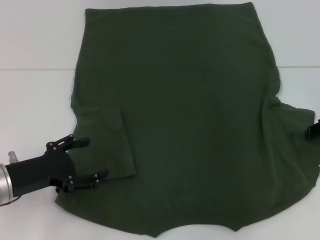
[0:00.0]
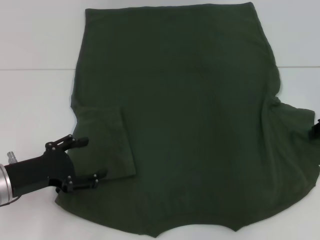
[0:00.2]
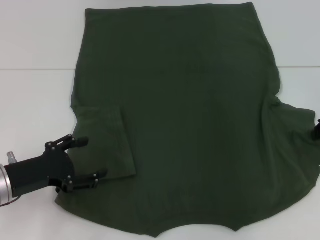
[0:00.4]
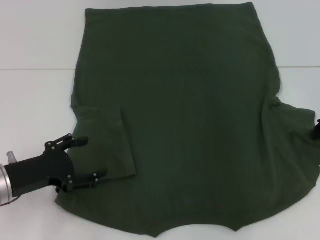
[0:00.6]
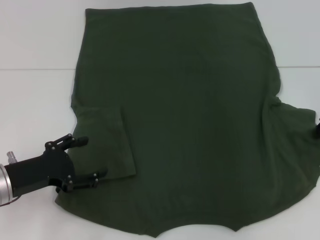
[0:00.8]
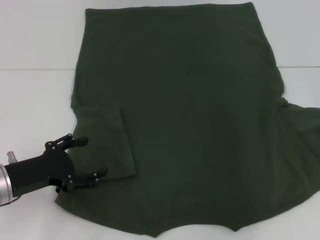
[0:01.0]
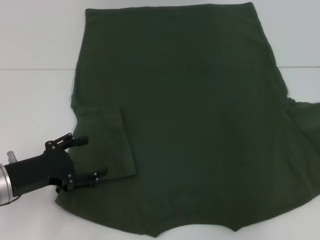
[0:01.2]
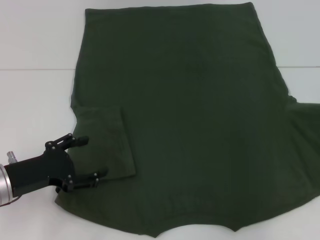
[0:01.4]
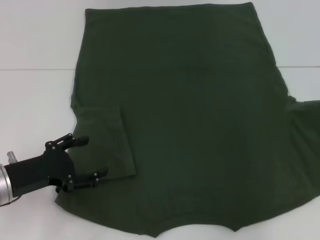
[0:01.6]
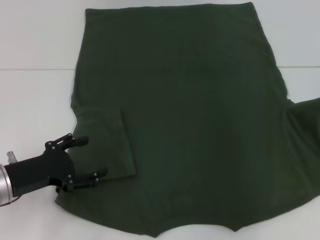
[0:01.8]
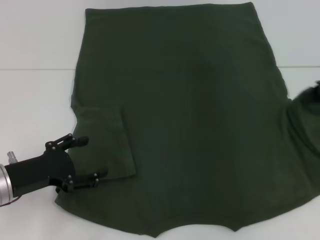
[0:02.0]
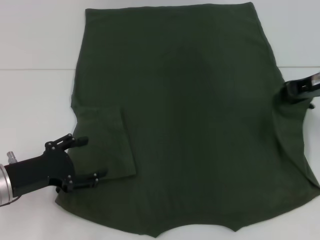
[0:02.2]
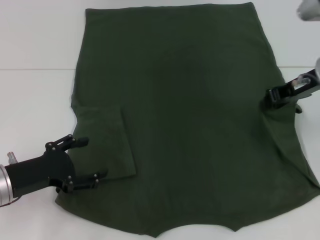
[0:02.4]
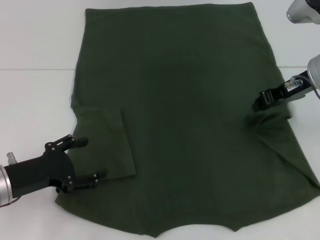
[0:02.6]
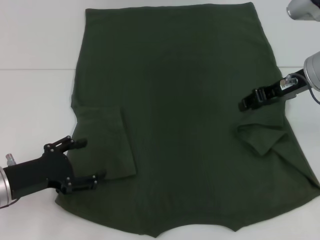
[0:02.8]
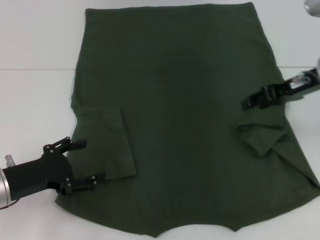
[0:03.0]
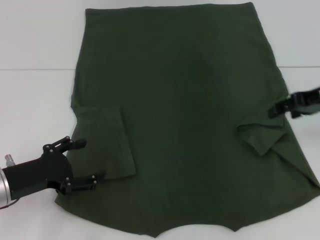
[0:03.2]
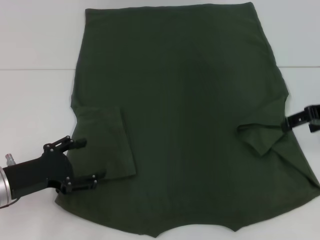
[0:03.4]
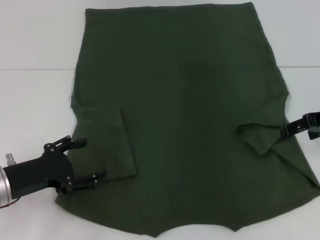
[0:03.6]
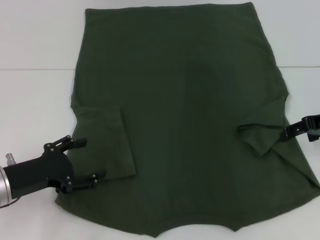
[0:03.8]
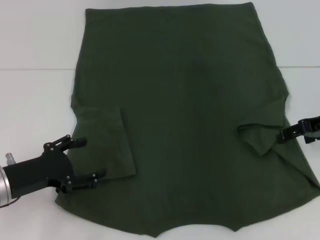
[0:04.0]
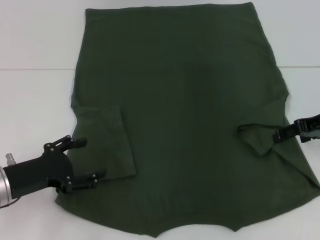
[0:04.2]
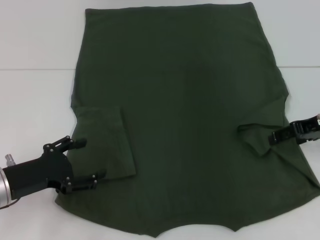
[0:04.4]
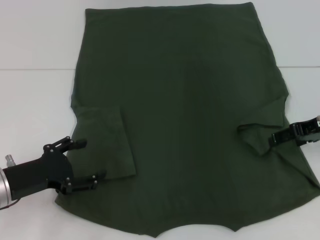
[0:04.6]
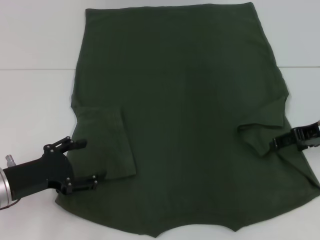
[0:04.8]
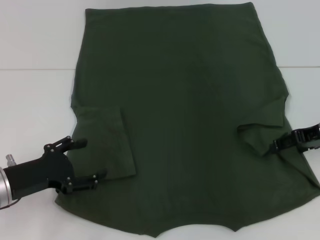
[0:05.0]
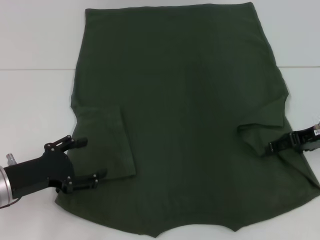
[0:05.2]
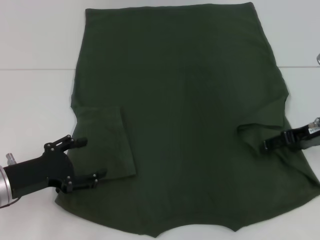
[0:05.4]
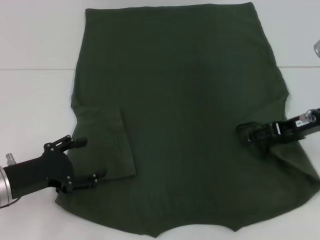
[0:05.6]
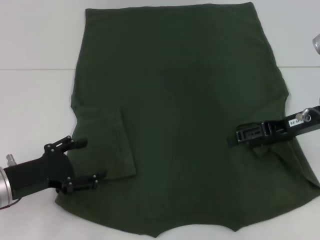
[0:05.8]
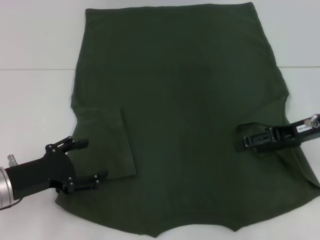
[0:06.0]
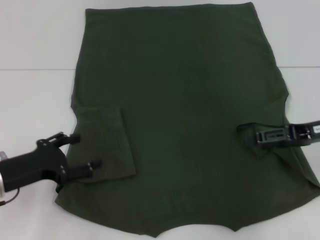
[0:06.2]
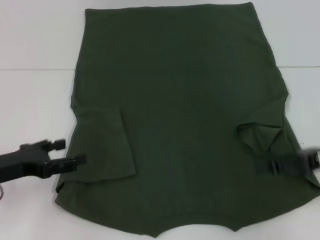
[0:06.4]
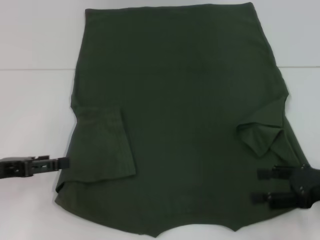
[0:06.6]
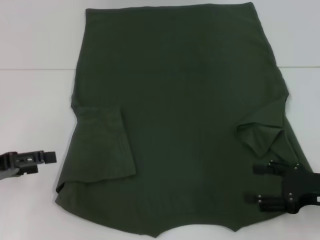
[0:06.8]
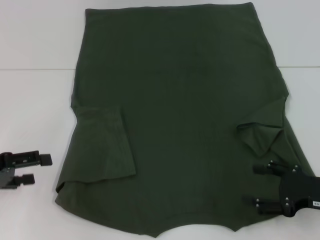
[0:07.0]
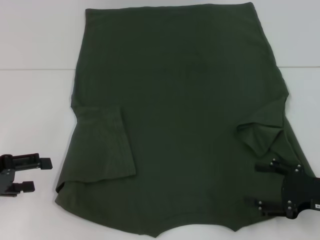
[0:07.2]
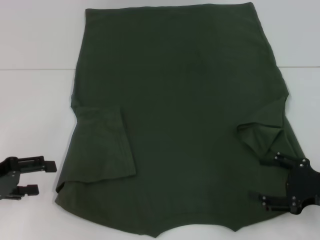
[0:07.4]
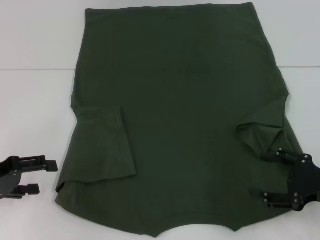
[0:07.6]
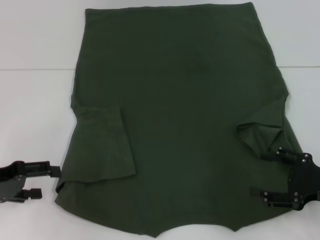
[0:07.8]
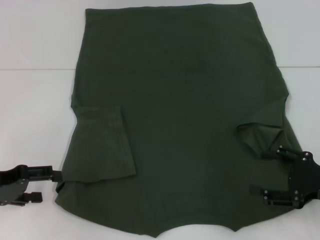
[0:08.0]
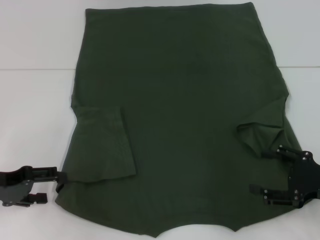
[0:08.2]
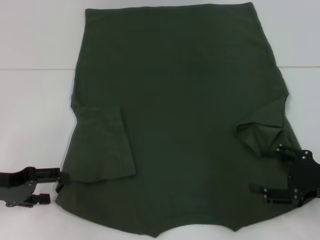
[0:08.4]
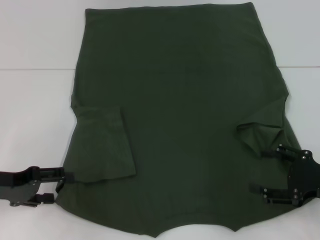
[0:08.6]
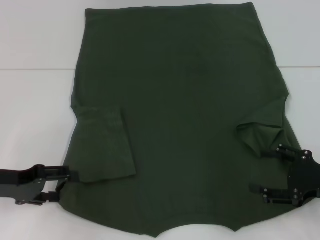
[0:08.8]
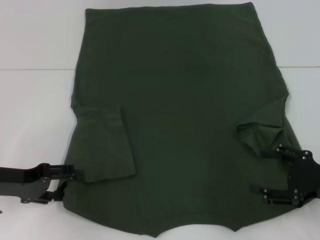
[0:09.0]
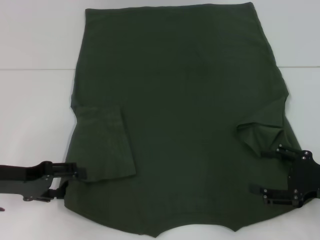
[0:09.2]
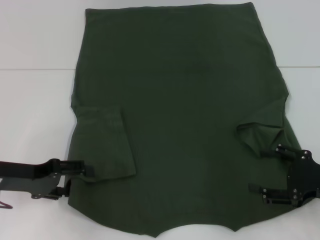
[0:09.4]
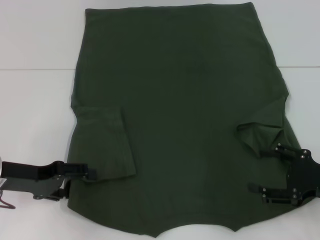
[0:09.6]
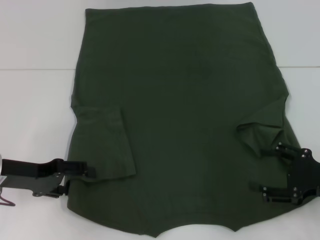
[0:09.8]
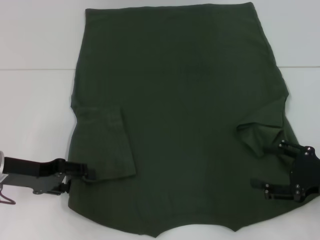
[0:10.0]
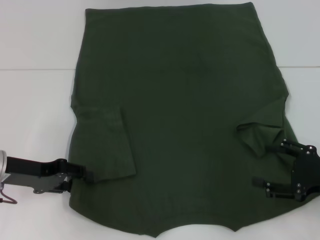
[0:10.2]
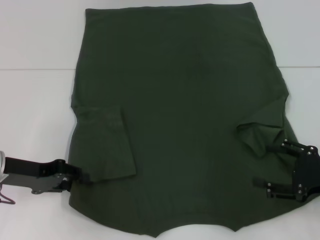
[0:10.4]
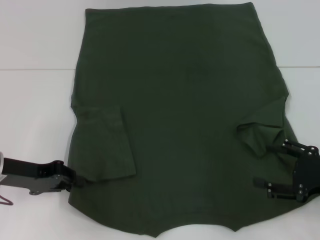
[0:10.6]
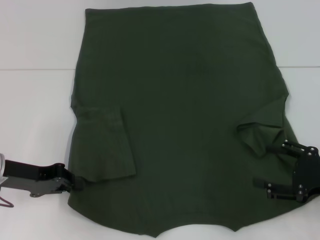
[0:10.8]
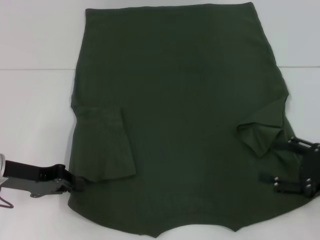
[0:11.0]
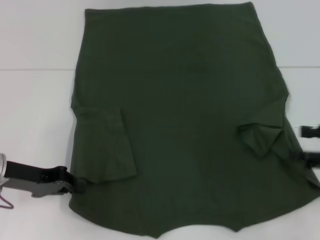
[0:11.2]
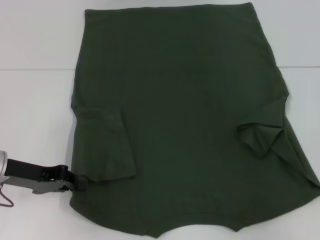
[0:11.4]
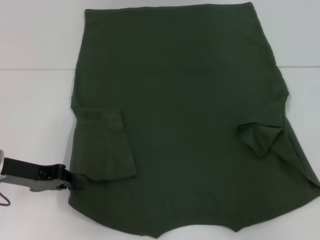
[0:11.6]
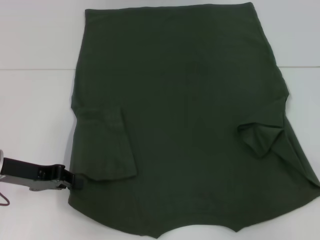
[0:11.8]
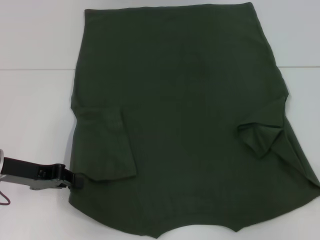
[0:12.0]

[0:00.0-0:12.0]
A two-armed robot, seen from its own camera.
Step, 0:00.0 to 0:06.2: Fold the bottom right sleeve with your right hand.
Step, 0:06.4 to 0:11.0: Grab the bottom left corner with your left hand.
0:00.0 to 0:01.6: The right gripper shifts by approximately 5 cm, and closes.
0:01.6 to 0:03.0: The right gripper moves to the left, some 15 cm, and opens.
0:03.0 to 0:04.4: The right gripper shifts by some 5 cm, and opens its fingers.
0:06.0 to 0:07.6: The right gripper heads backward and downward, covering about 15 cm; the left gripper goes approximately 5 cm to the left.
0:07.6 to 0:09.0: The grippers make only small movements.
0:09.0 to 0:10.4: The left gripper closes its fingers.
0:10.4 to 0:12.0: The left gripper closes; the right gripper heads upward and to the right, covering approximately 10 cm.

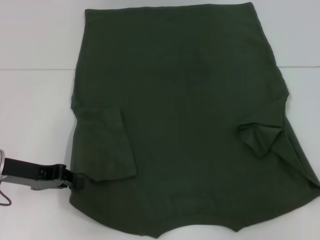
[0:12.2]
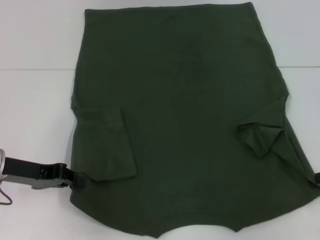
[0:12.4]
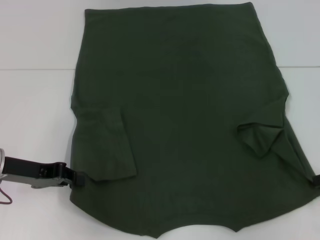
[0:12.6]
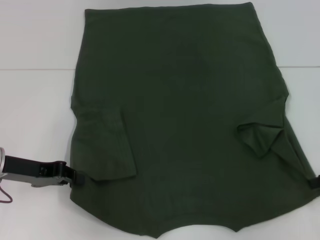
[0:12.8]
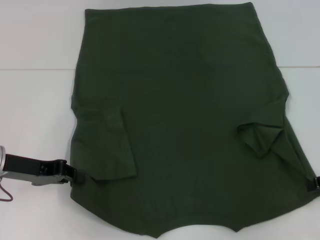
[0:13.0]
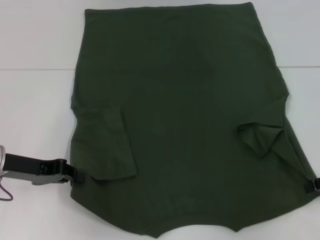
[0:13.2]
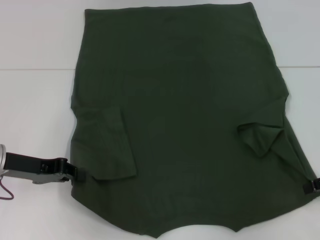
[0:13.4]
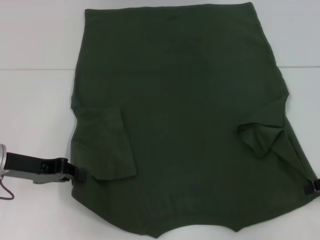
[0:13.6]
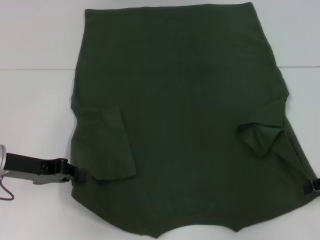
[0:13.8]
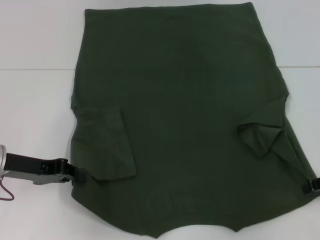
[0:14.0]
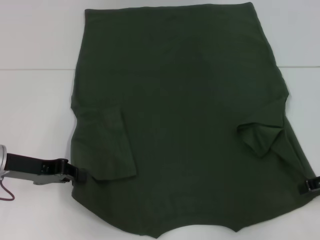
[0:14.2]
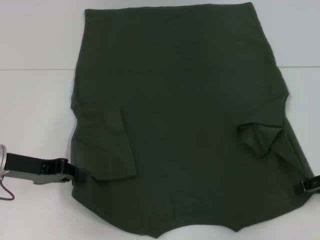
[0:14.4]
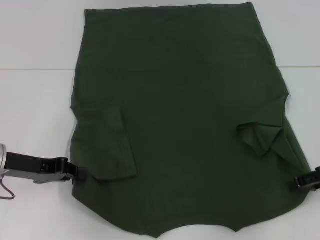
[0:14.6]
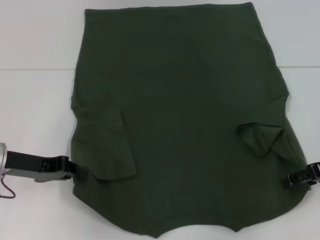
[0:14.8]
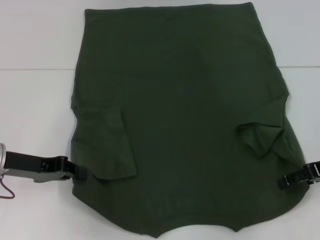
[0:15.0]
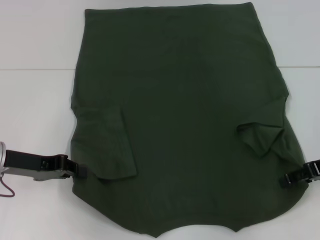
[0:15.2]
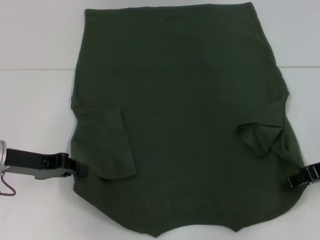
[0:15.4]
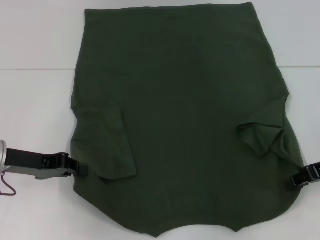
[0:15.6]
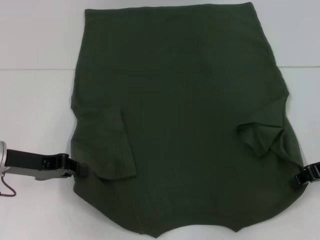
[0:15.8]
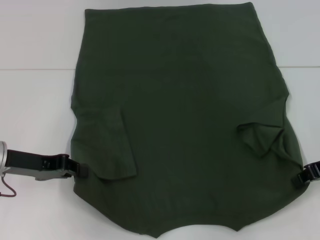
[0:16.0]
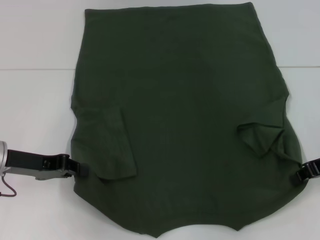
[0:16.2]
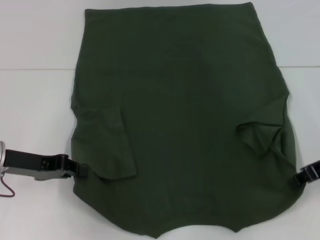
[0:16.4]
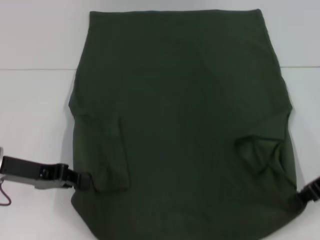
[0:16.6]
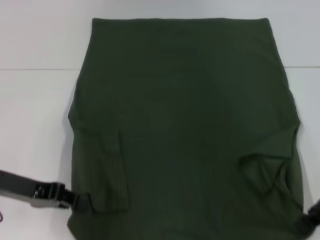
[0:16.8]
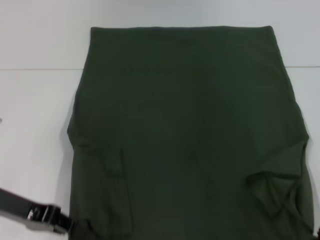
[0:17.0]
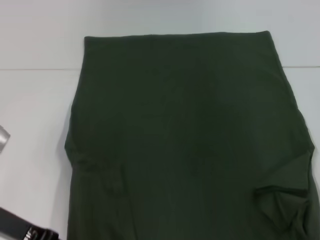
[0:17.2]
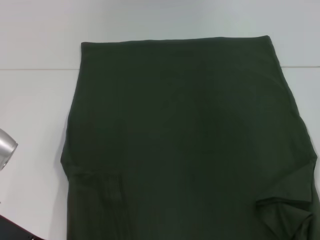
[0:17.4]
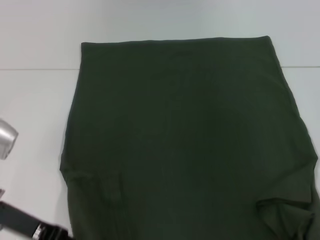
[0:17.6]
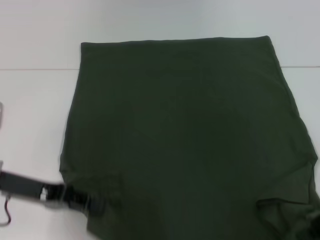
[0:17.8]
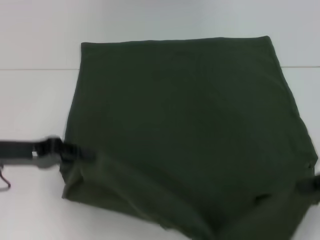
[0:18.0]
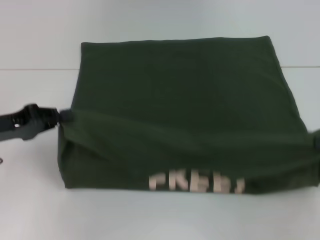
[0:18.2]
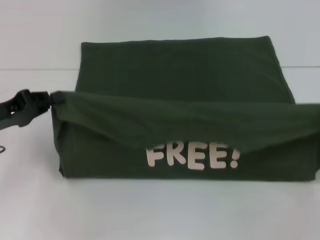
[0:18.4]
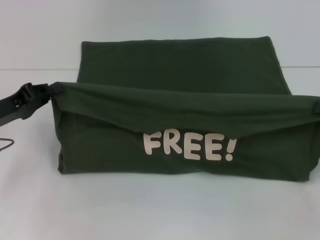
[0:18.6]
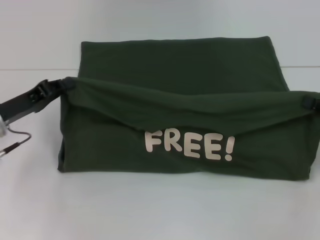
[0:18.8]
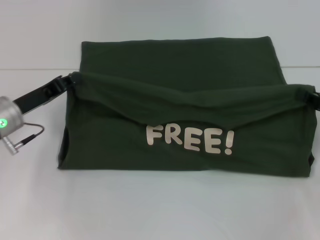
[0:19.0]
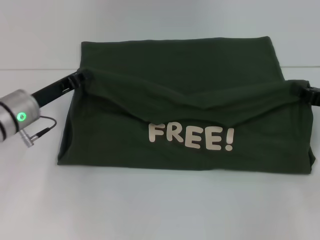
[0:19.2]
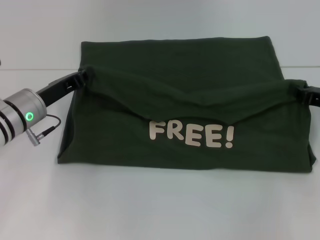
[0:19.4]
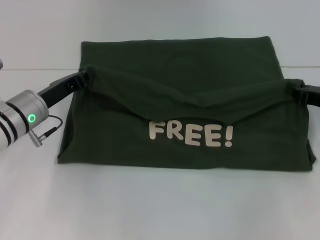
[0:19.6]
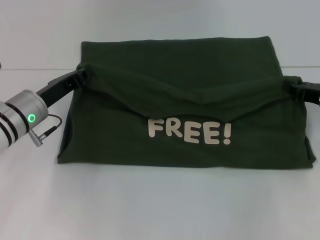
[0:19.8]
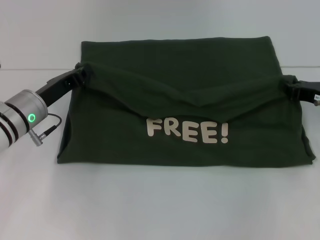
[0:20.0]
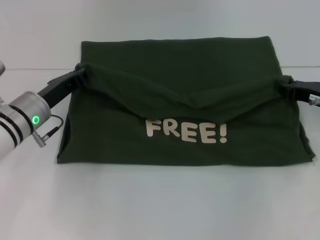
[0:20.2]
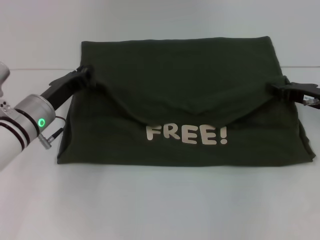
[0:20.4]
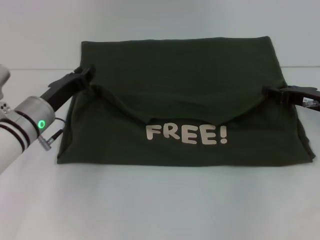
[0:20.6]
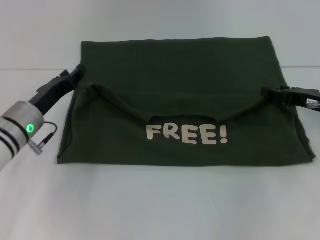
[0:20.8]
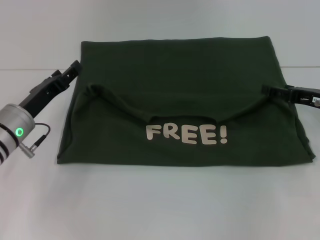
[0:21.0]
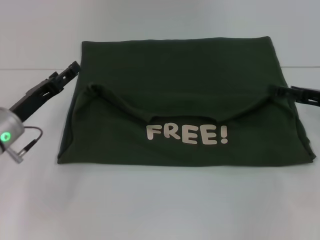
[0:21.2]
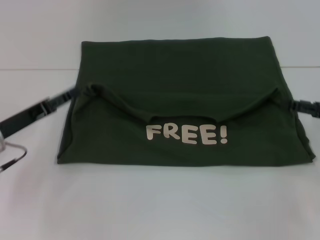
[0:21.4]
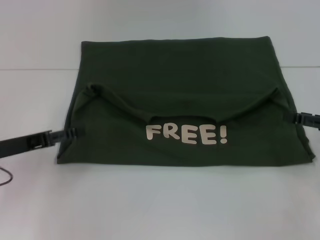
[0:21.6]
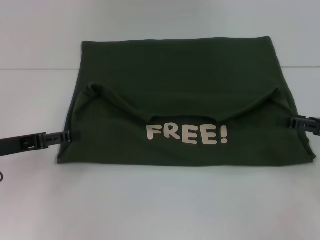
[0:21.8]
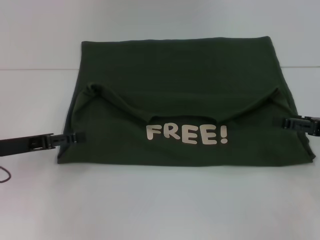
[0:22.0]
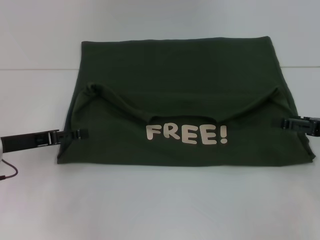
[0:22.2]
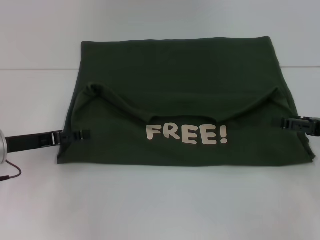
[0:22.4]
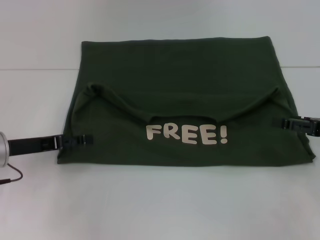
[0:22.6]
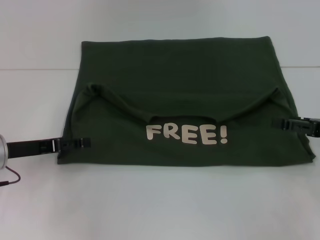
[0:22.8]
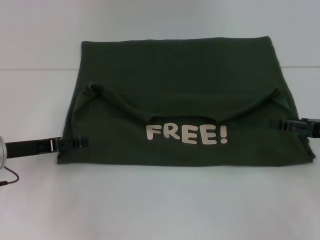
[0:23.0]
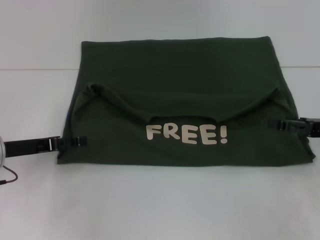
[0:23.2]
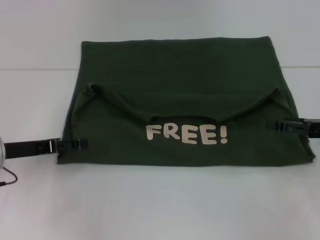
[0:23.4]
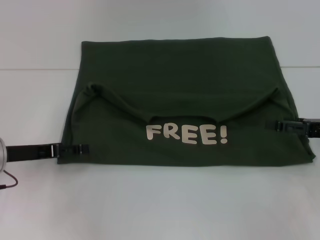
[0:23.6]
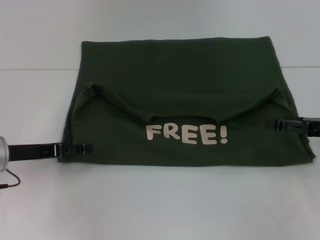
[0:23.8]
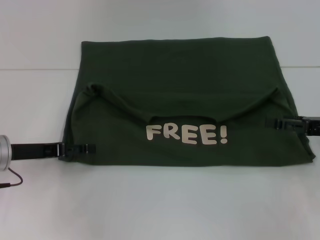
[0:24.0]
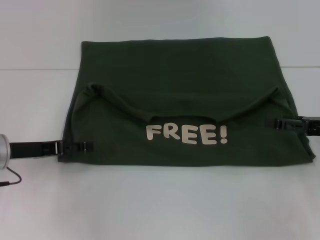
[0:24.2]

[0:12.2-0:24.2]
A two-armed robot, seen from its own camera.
Step, 0:12.2 to 0:15.4: Grab the bottom right corner with your right hand.
Step, 0:15.6 to 0:20.8: Fold the clothes with your left hand.
Step, 0:15.6 to 0:20.8: Fold the clothes with your right hand.
0:12.2 to 0:13.8: The grippers make only small movements.
0:13.8 to 0:15.2: The grippers make only small movements.
0:15.2 to 0:16.6: The right gripper closes.
0:16.6 to 0:18.2: The right gripper heads to the right, covering about 10 cm.
0:18.2 to 0:19.8: The left gripper moves to the right and forward, approximately 10 cm; the right gripper heads forward, downward and to the left, covering approximately 15 cm.
0:19.8 to 0:21.2: The right gripper opens up. The left gripper opens up.
0:22.6 to 0:24.2: The two grippers keep their place.
